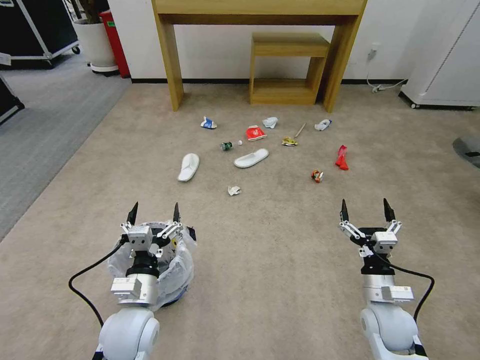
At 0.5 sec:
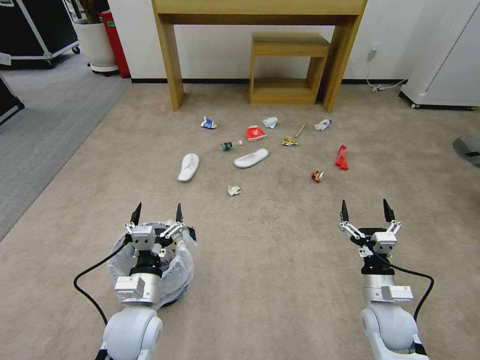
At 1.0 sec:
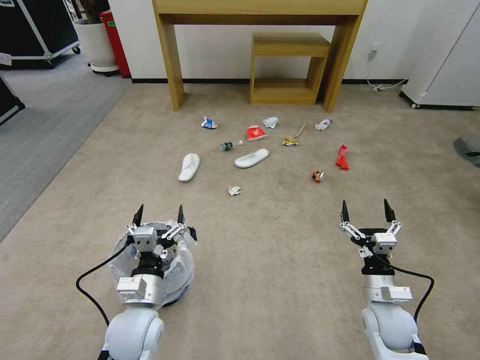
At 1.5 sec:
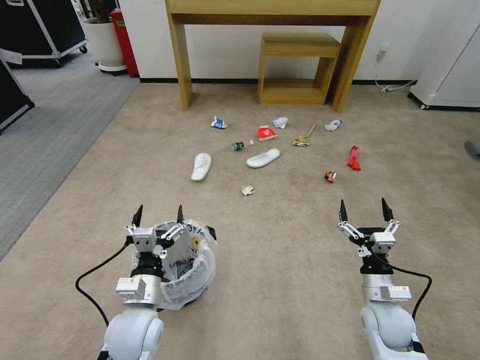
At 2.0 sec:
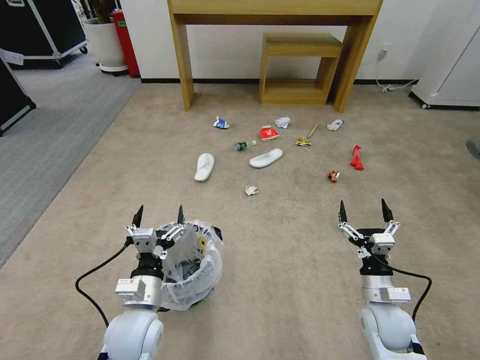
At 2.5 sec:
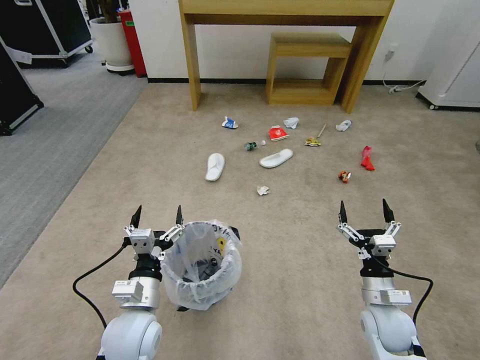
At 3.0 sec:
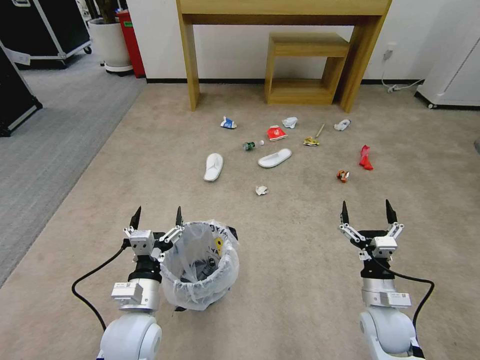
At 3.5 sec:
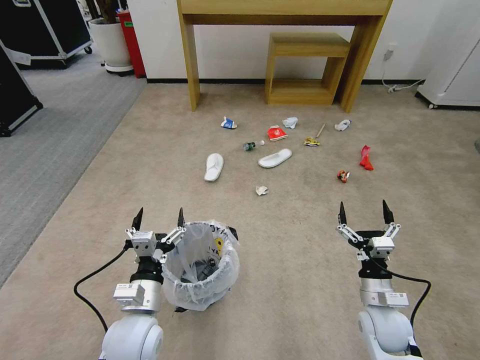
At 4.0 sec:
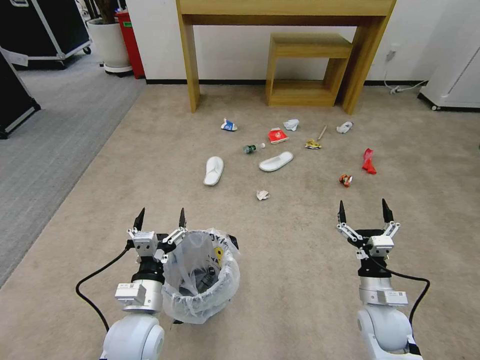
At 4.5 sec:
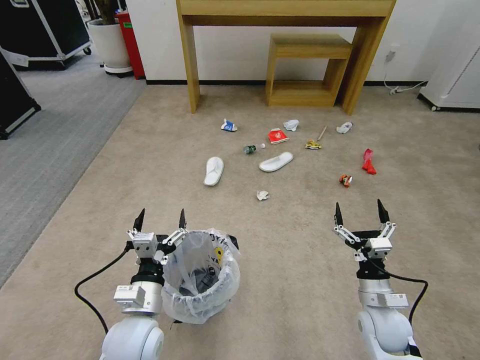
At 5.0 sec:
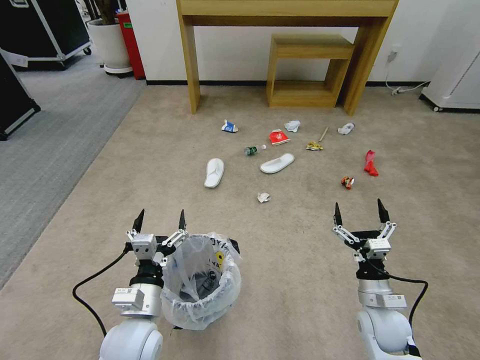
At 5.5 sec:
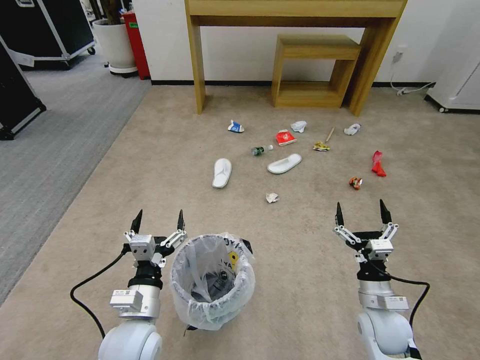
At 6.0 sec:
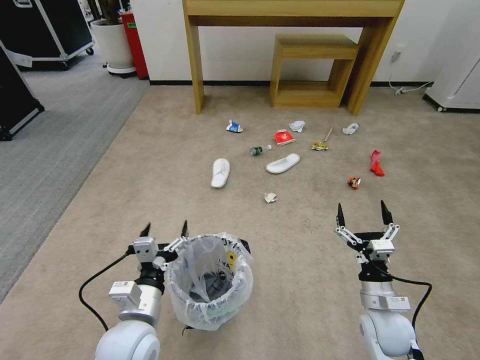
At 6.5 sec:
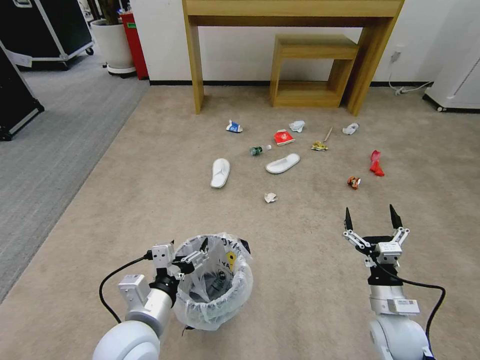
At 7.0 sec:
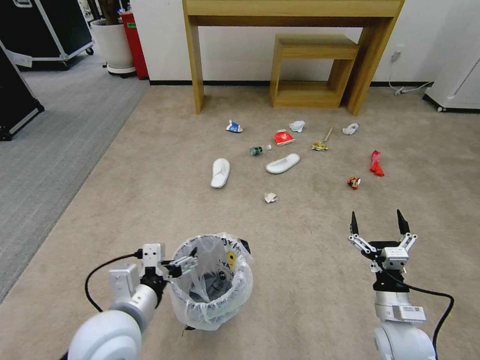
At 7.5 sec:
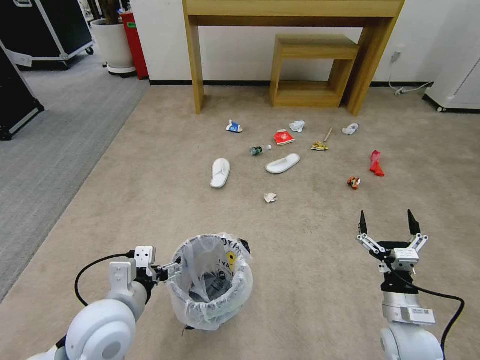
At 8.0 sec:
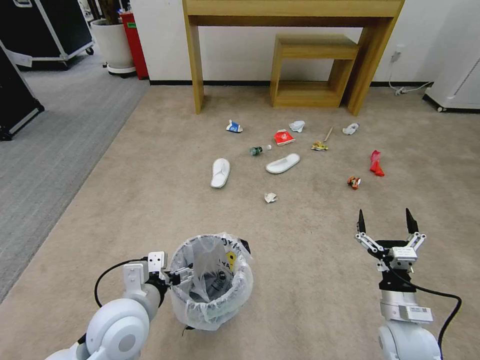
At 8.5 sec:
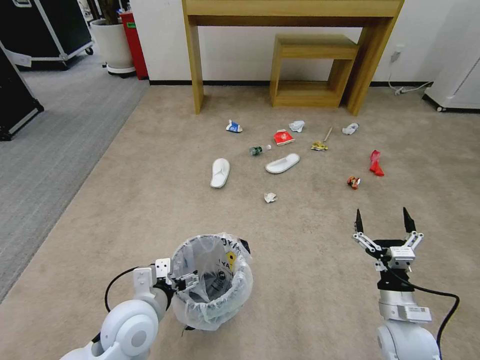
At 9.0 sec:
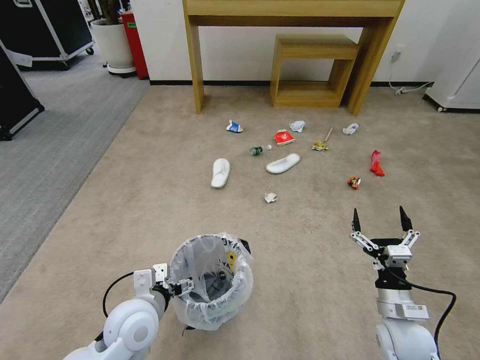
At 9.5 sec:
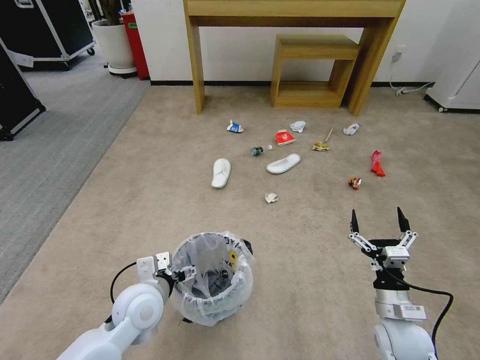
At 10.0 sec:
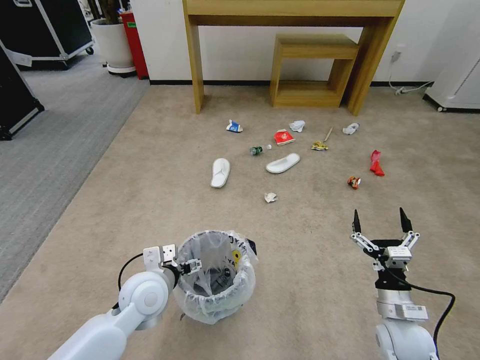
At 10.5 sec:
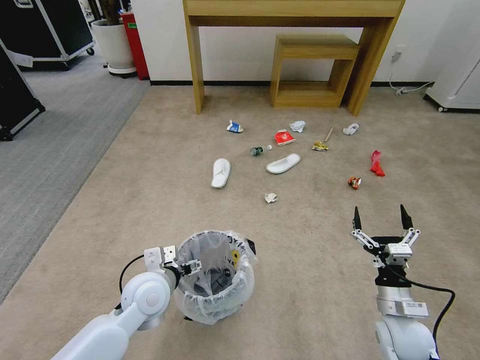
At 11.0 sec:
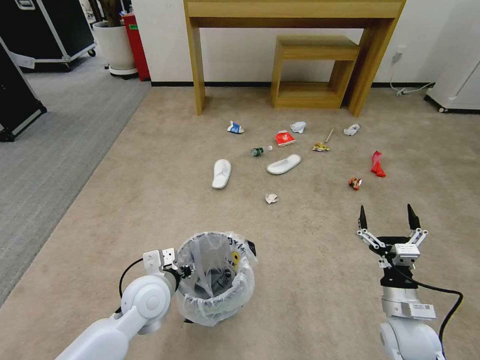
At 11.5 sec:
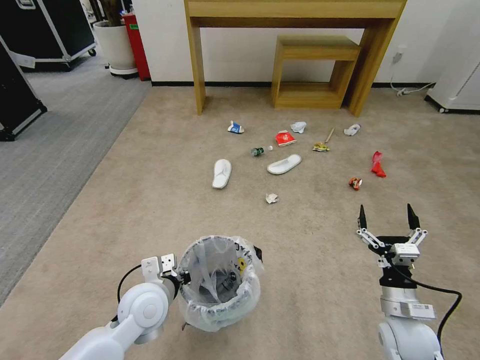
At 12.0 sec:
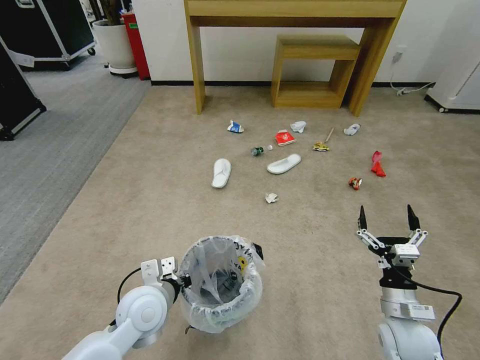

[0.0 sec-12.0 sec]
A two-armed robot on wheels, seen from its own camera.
Task of the whole recording: Pick up the trash bin and place the garbage on the floor into it.
2.0 sec to 4.0 sec: The two grippers keep their place.
4.0 sec to 6.0 sec: There are only small adjustments of the grippers.
8.0 sec to 10.0 sec: The left gripper moves forward, about 5 cm.
10.0 sec to 12.0 sec: The left gripper closes up.

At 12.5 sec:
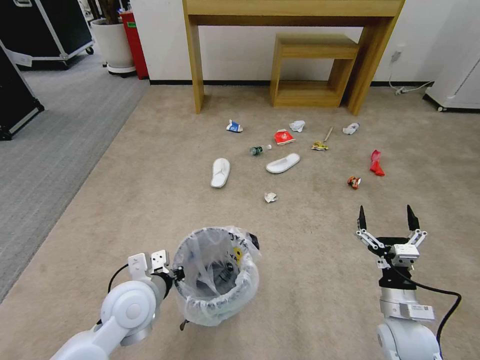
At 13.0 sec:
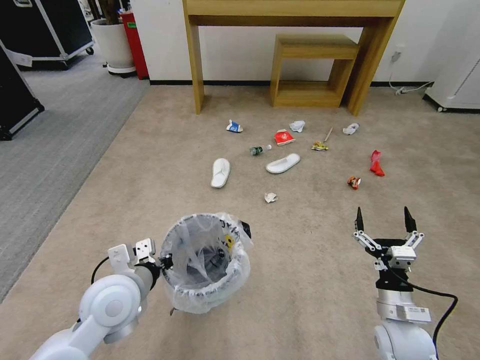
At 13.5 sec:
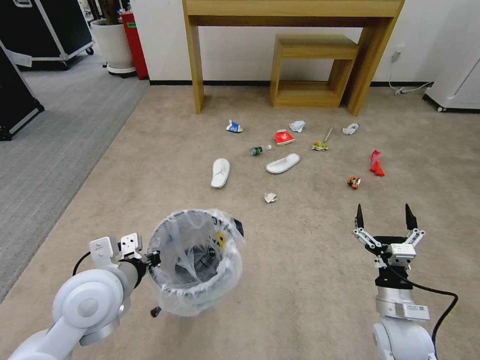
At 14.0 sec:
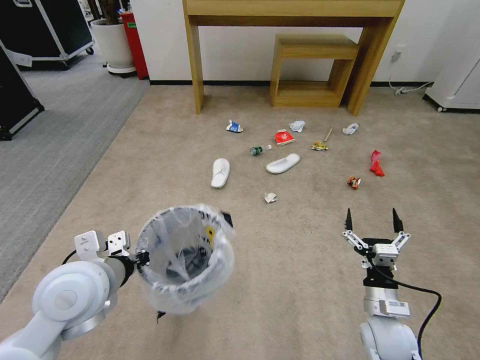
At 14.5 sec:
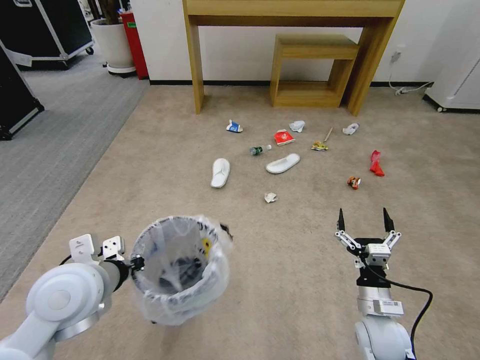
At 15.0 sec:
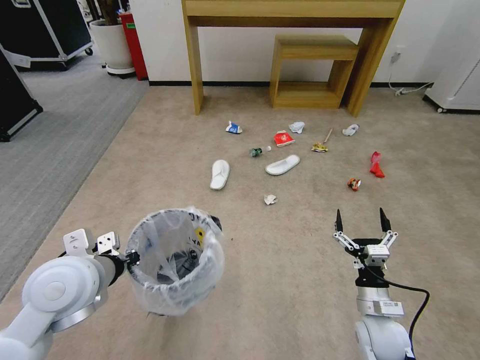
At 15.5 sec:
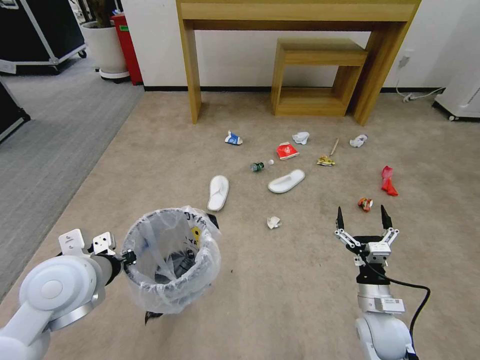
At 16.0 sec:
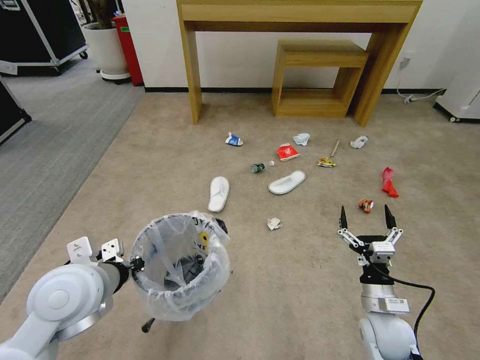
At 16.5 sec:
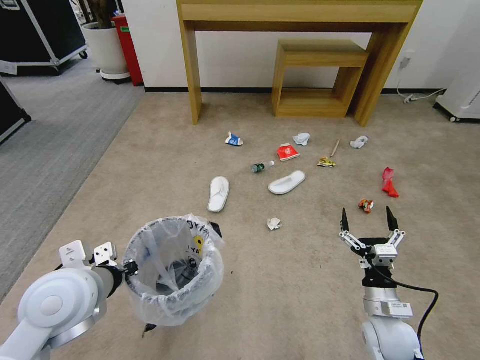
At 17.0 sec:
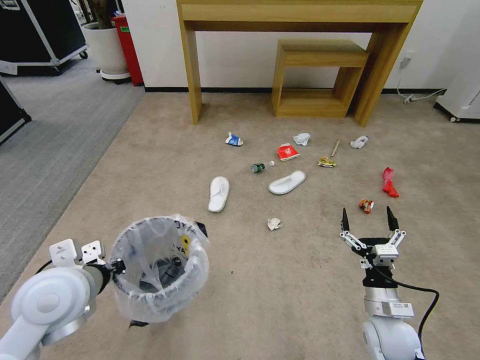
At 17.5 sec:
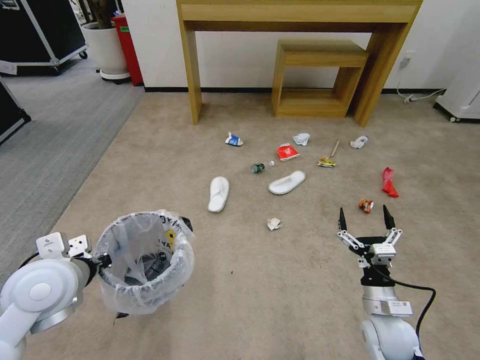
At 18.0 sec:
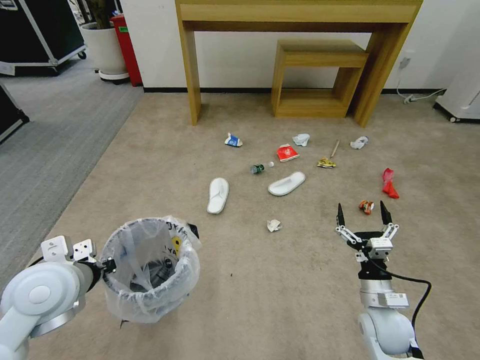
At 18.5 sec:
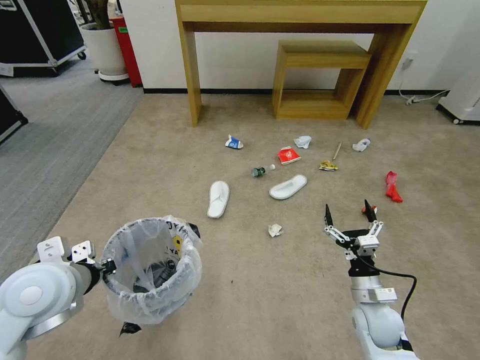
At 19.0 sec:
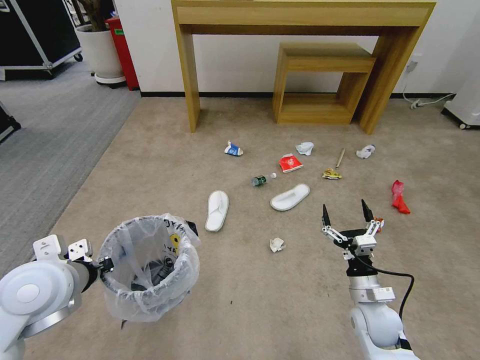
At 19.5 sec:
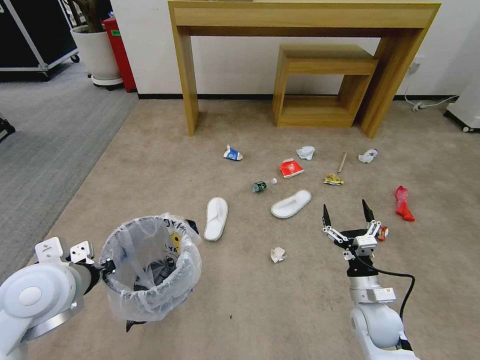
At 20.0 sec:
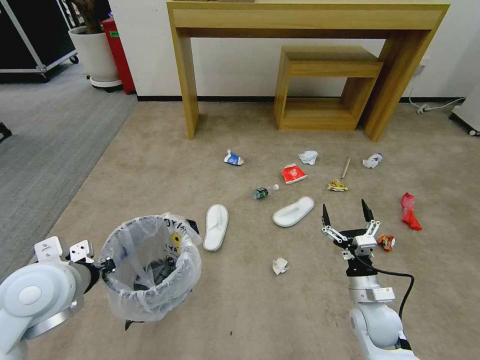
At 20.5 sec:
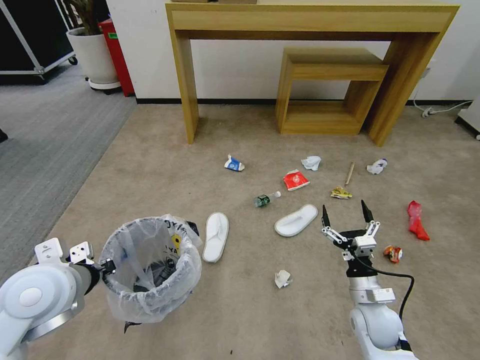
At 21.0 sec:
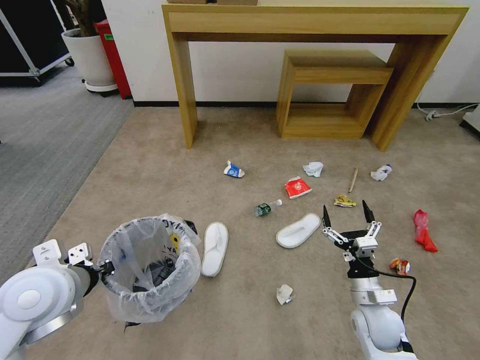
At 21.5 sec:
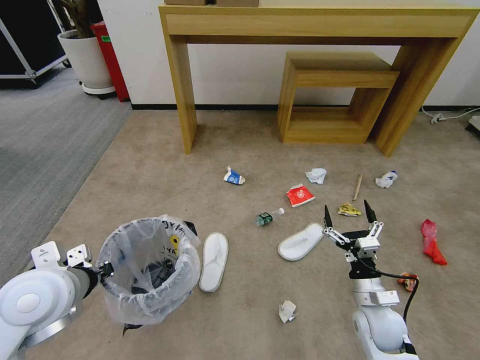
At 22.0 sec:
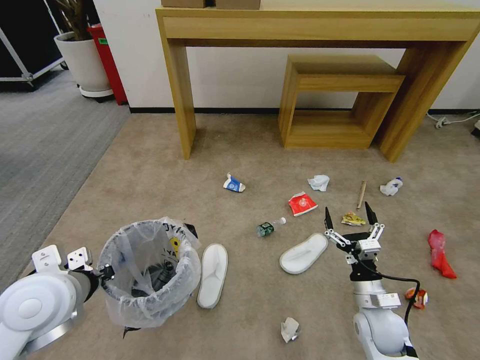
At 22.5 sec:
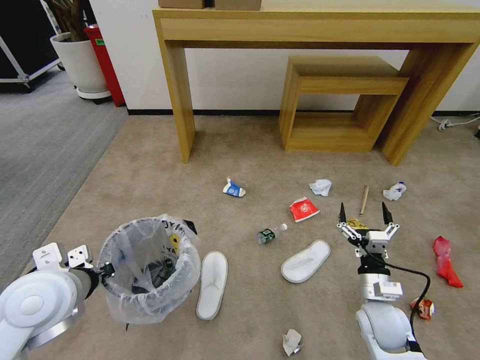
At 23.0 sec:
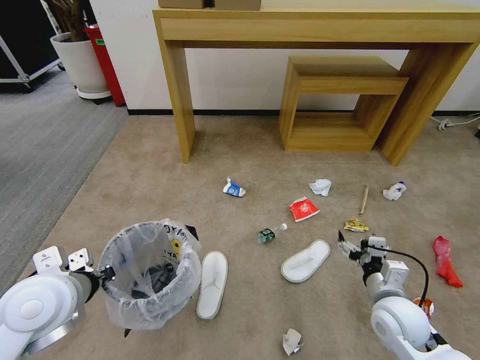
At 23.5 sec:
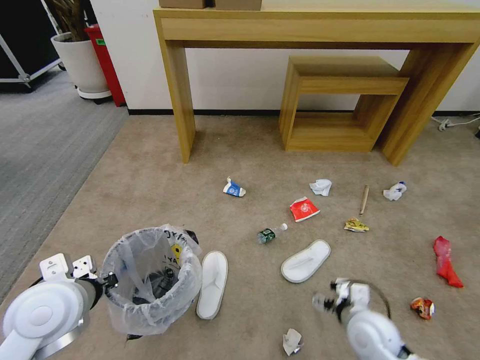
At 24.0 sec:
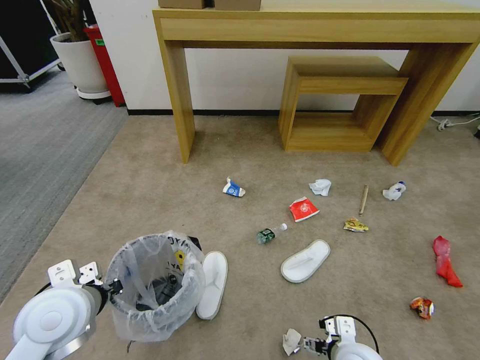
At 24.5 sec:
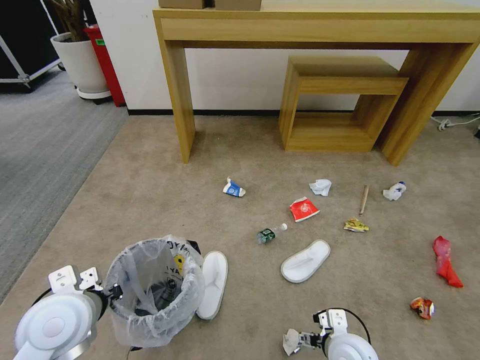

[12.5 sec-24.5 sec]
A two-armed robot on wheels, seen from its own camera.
Task of the whole recording: Pick up the trash bin and place the garbage on the floor into it.
12.5 sec to 14.5 sec: The left gripper shifts some 10 cm upward and to the left.
16.5 sec to 18.5 sec: The grippers move only a little.
22.5 sec to 24.5 sec: The right gripper goes roughly 10 cm to the left and backward.

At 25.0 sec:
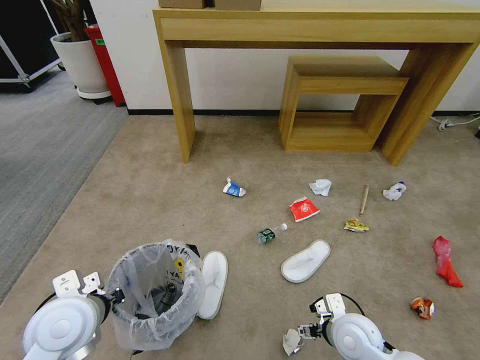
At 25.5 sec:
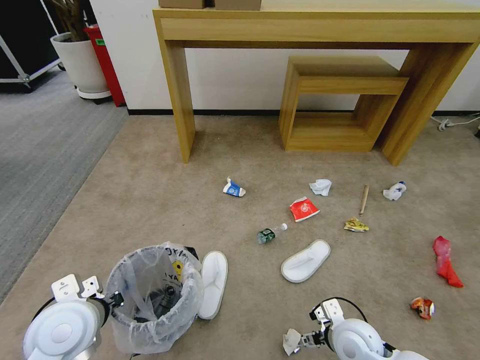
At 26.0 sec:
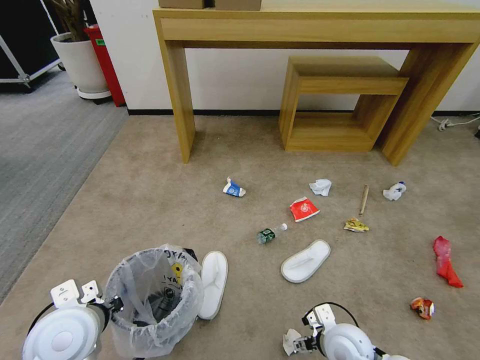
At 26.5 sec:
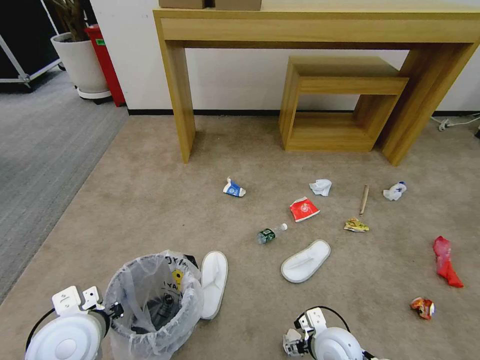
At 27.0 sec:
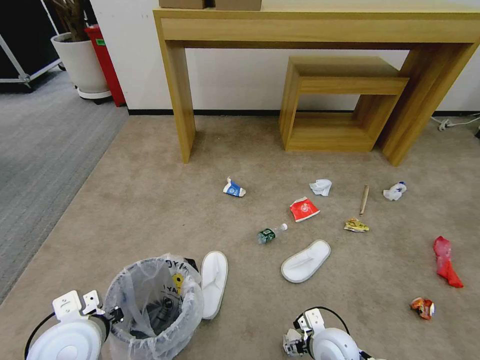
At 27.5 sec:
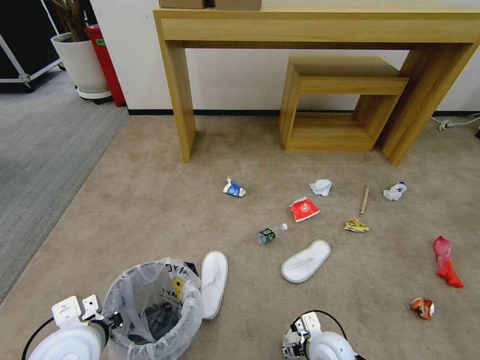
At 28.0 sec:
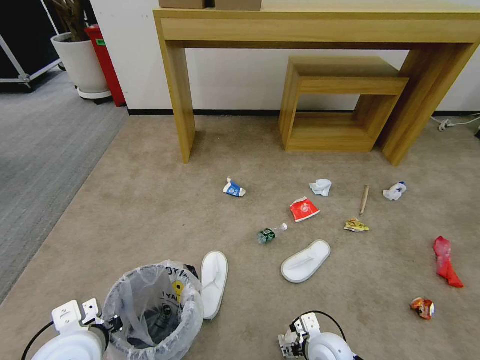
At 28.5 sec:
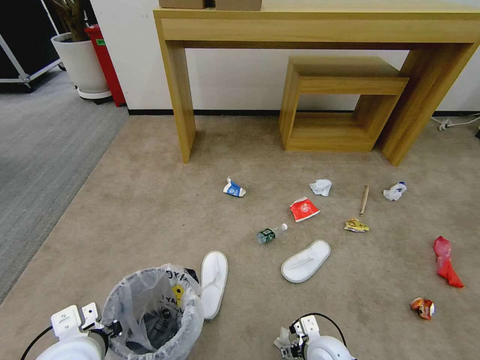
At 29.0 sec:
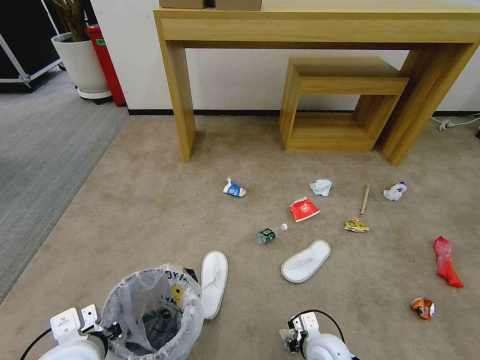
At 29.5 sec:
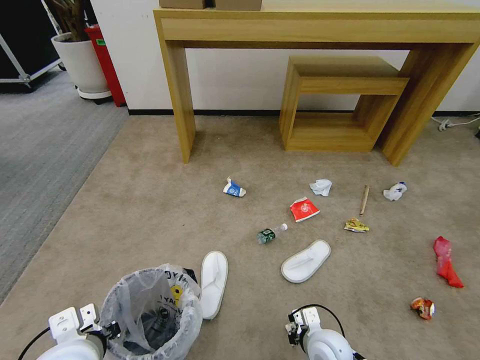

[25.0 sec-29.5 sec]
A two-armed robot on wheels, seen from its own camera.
Task of the whole recording: Pick up the trash bin and place the garbage on the floor into it.
25.0 sec to 27.0 sec: The right gripper travels downward by approximately 5 cm.
27.0 sec to 29.5 sec: The right gripper closes.
